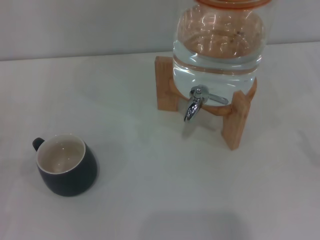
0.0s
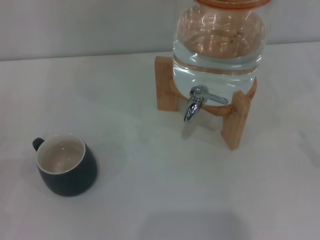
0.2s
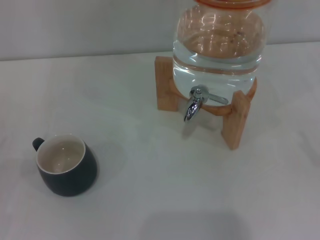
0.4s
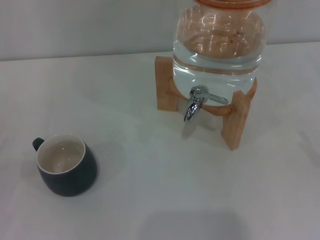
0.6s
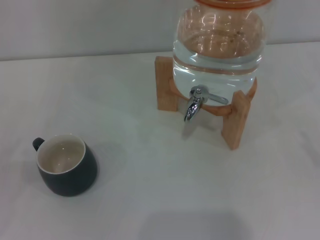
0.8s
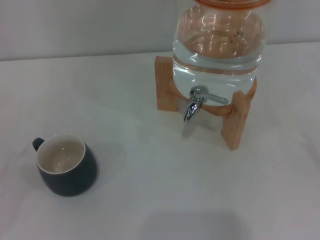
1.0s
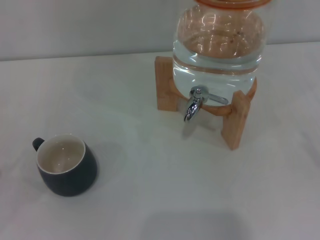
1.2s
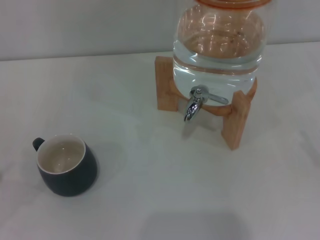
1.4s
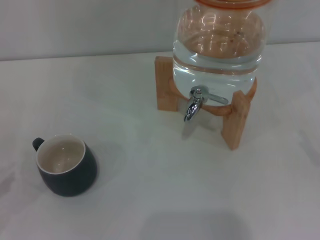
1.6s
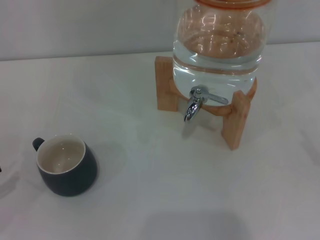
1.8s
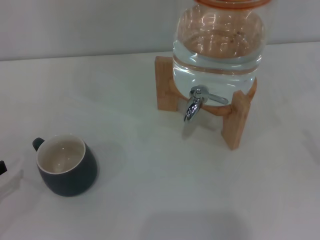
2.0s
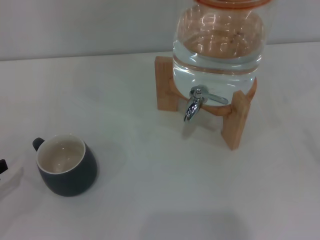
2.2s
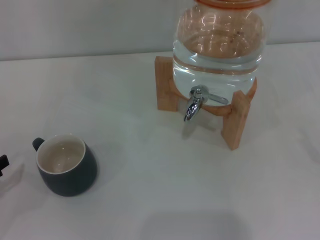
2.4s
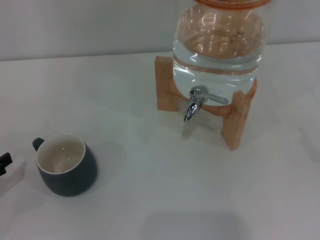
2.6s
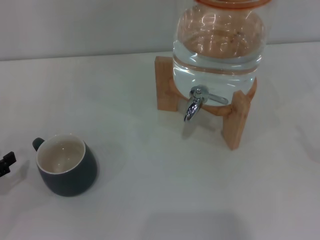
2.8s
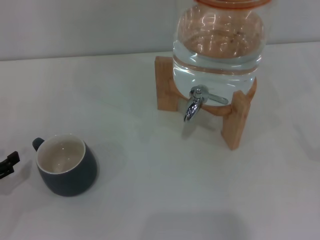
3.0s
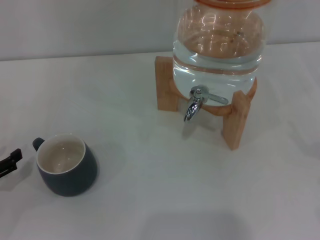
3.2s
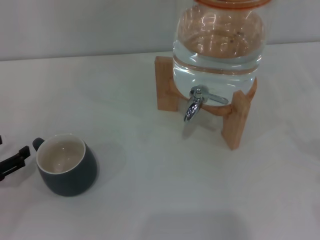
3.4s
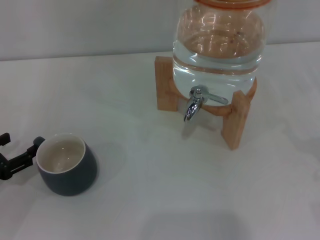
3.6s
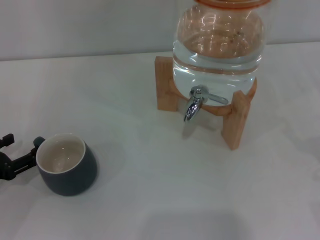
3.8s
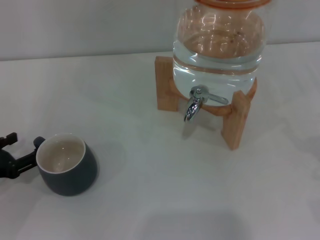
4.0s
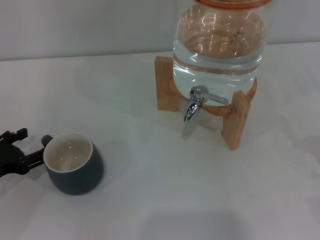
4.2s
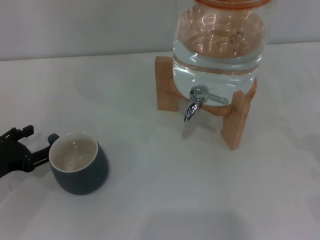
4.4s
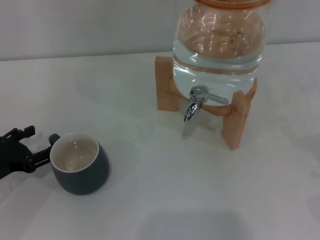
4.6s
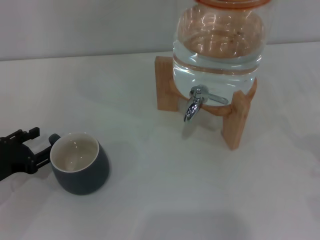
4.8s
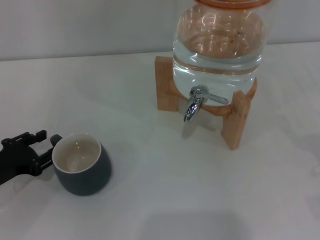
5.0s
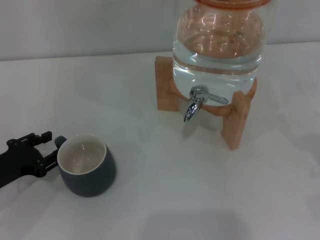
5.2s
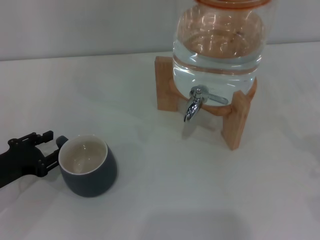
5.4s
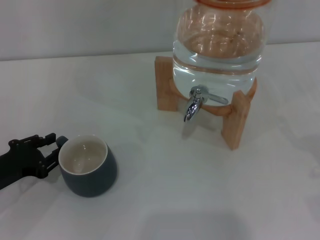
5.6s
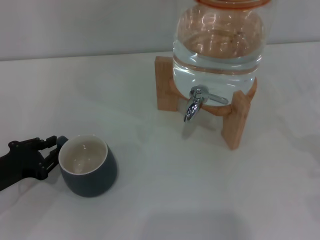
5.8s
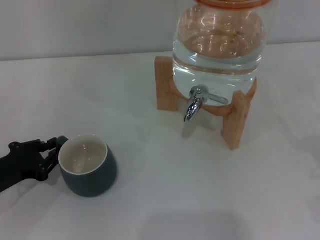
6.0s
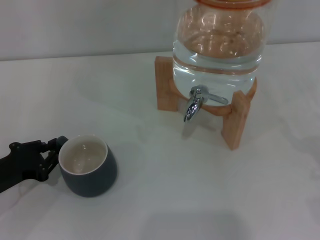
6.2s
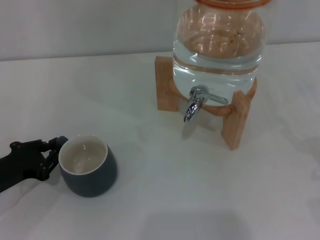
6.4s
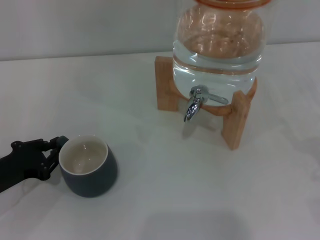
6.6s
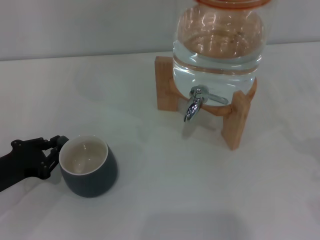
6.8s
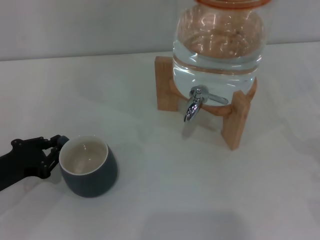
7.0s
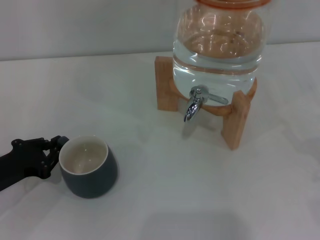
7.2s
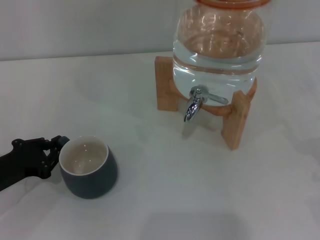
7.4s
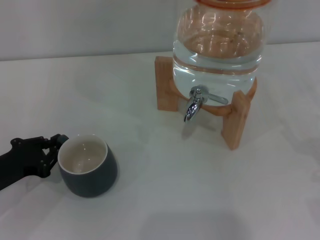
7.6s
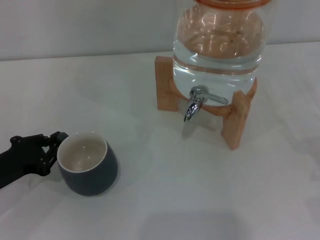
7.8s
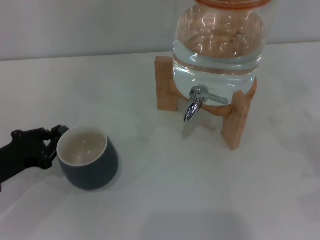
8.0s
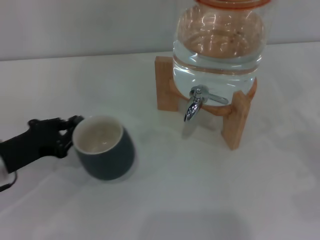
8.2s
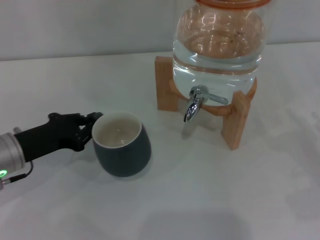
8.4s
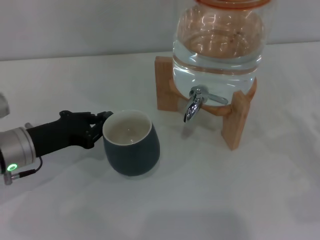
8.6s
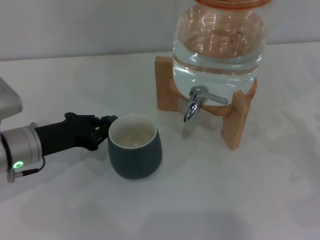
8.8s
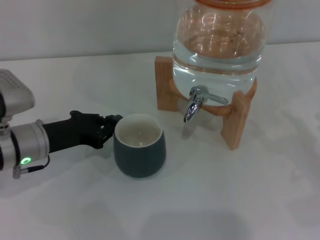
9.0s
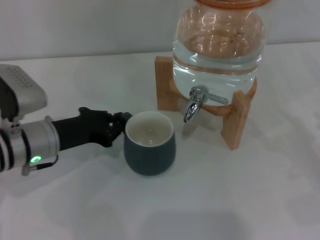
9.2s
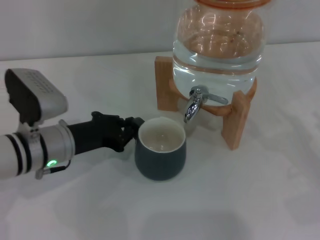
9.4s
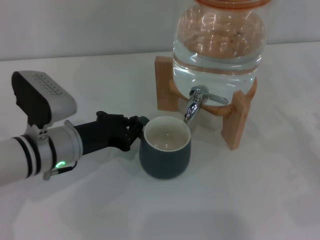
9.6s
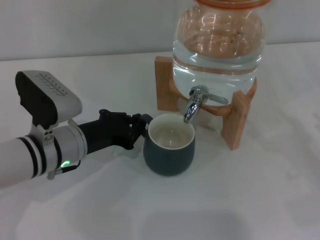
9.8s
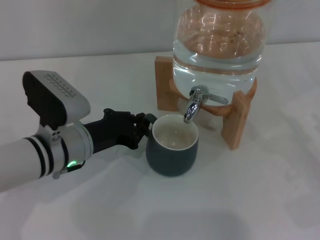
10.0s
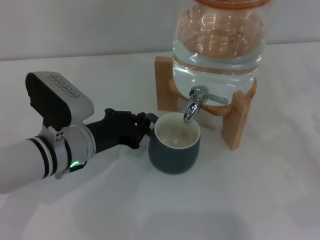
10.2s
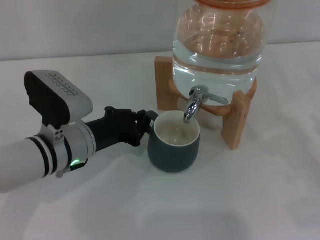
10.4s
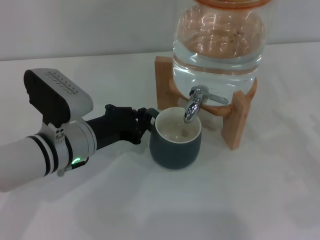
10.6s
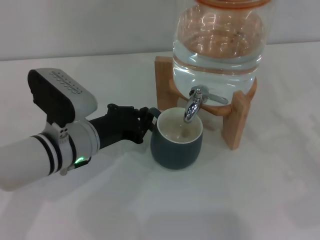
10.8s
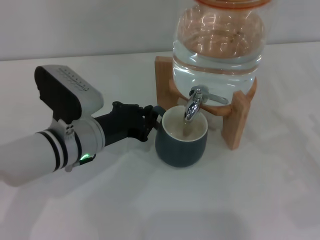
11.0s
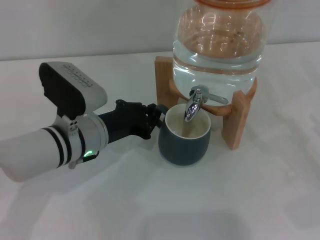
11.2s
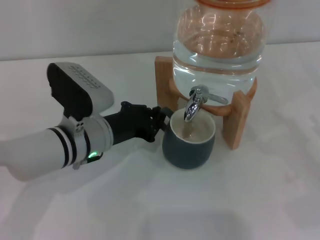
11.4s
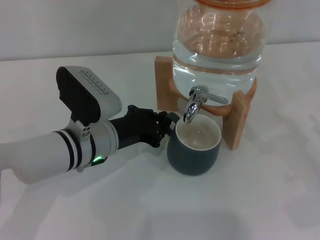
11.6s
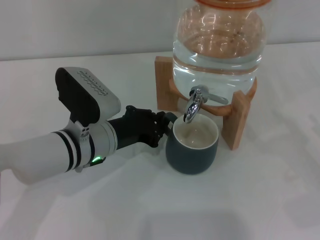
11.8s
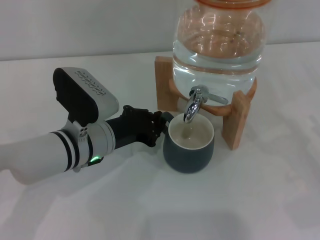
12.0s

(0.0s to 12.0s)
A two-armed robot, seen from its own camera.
Task of the whole recording: the left gripper pick up the black cup and place it horizontally under the faucet, the right gripper turn on the faucet to fill the cup, and then turn off the faucet.
1.6s - 3.0s: The left gripper moves roughly 5 cm.
3.0s - 4.4s: The left gripper moves to the right, some 5 cm.
4.4s - 6.0s: The left gripper closes up.
6.0s - 7.6s: Both grippers stay put.
7.6s - 9.0s: The left gripper goes approximately 10 cm to the right and forward.
9.0s - 10.4s: The left gripper moves to the right, approximately 5 cm.
10.4s - 12.0s: There are only small adjustments of the grippers.

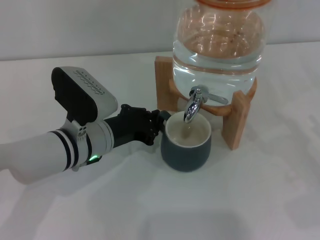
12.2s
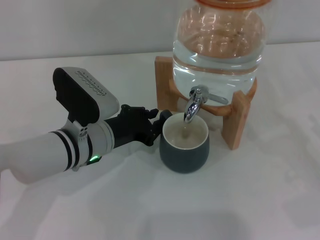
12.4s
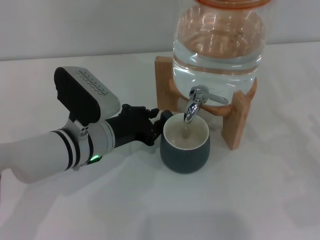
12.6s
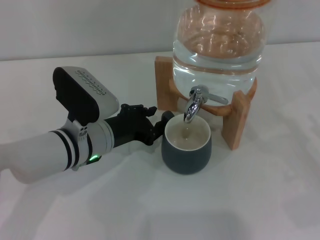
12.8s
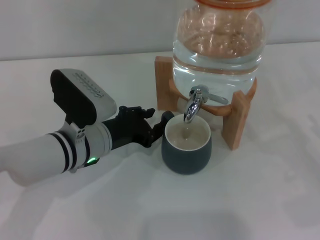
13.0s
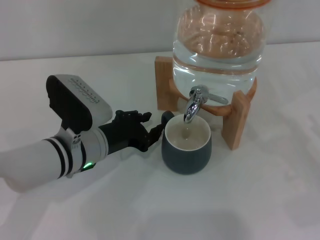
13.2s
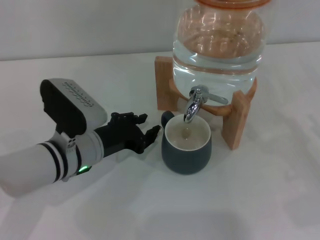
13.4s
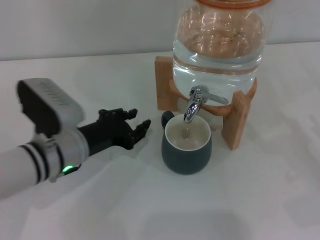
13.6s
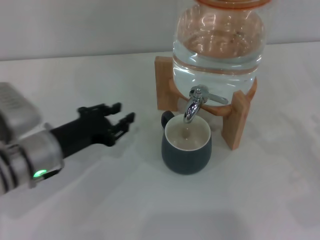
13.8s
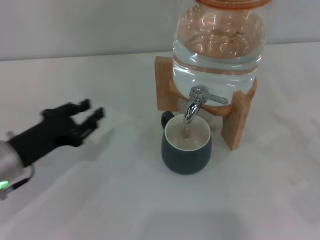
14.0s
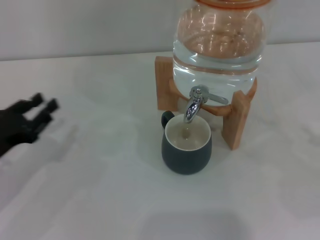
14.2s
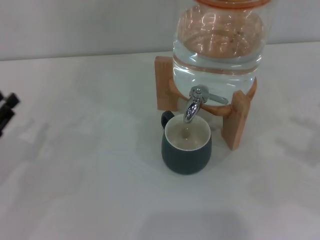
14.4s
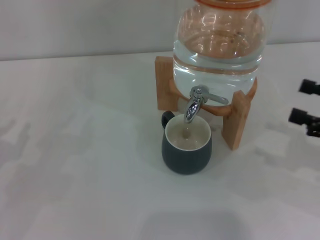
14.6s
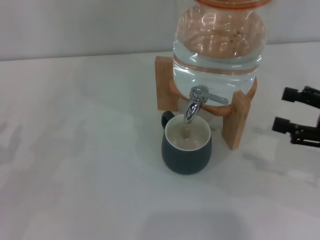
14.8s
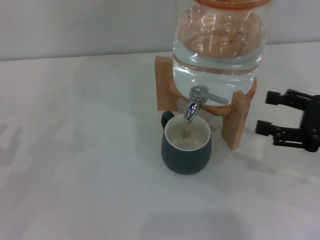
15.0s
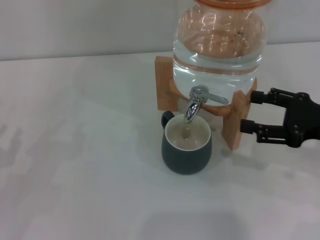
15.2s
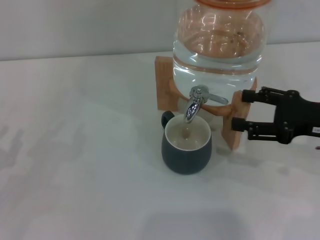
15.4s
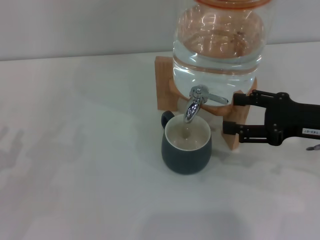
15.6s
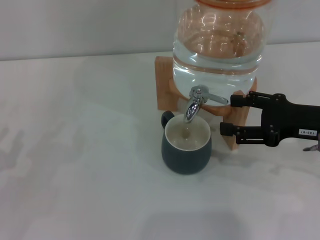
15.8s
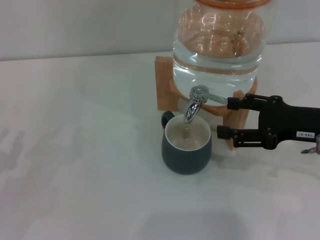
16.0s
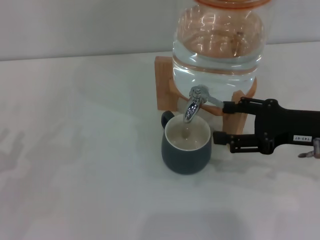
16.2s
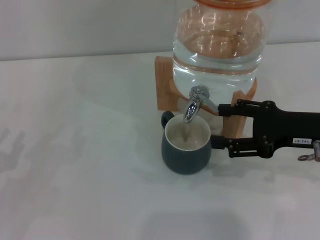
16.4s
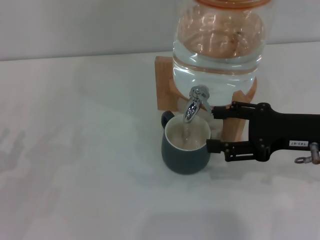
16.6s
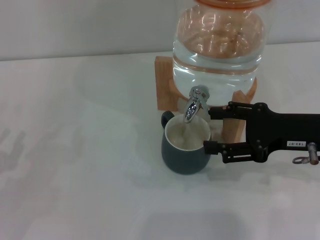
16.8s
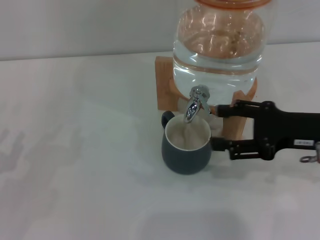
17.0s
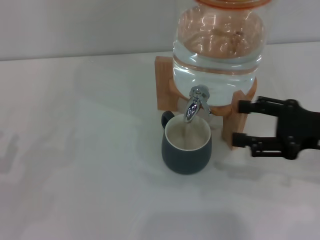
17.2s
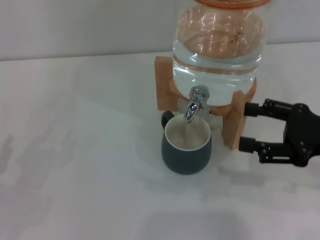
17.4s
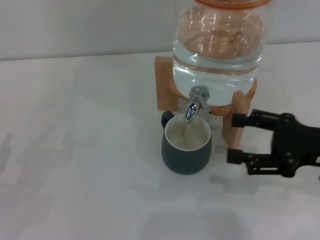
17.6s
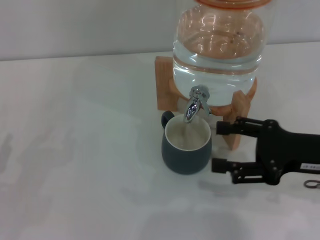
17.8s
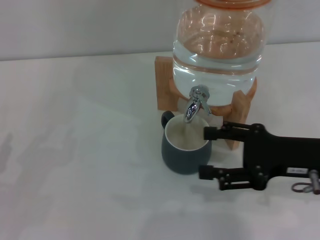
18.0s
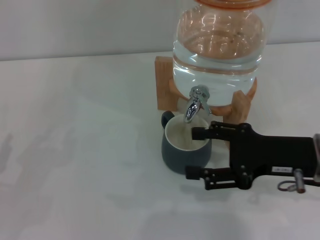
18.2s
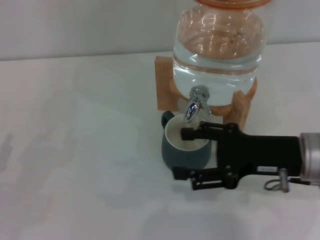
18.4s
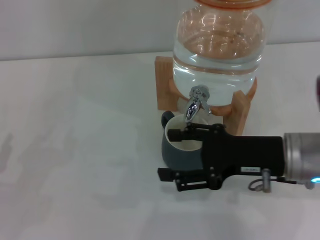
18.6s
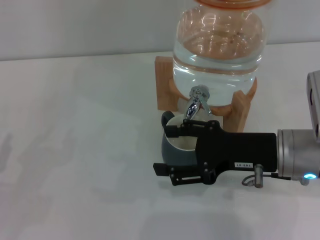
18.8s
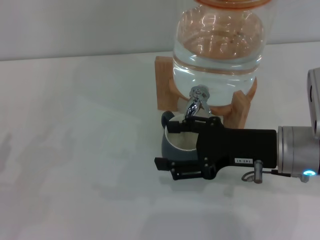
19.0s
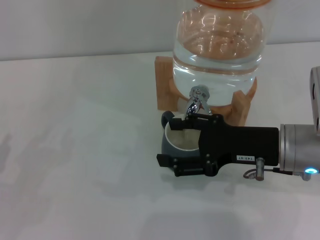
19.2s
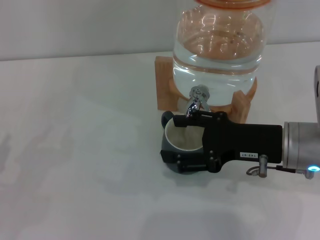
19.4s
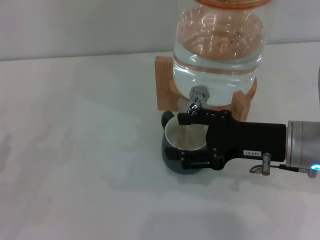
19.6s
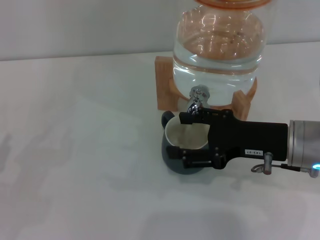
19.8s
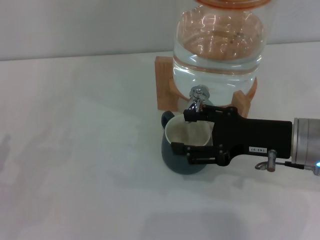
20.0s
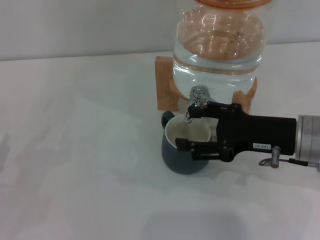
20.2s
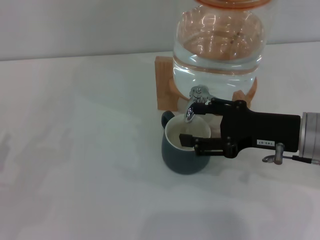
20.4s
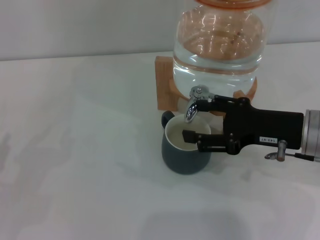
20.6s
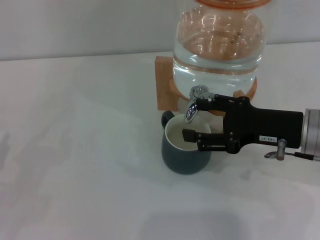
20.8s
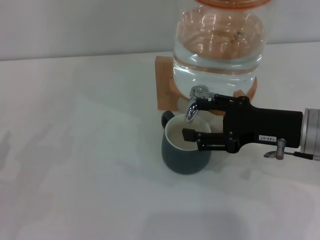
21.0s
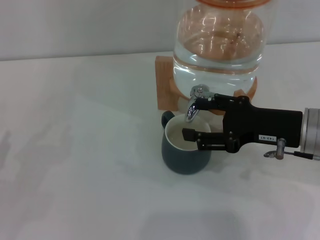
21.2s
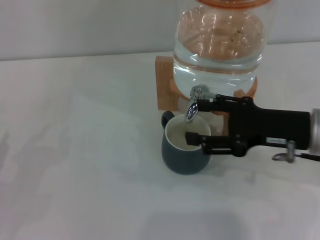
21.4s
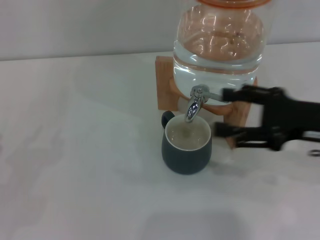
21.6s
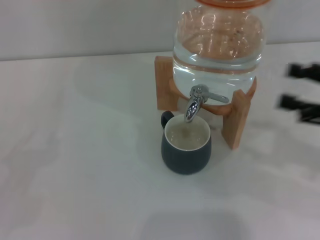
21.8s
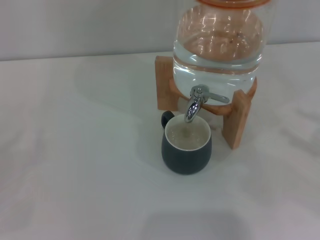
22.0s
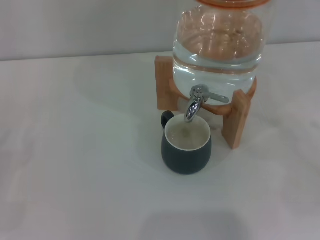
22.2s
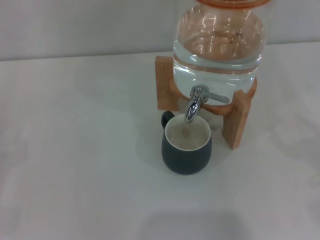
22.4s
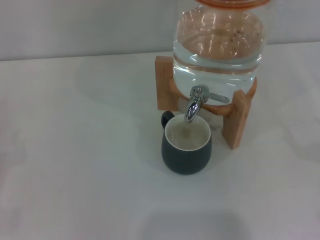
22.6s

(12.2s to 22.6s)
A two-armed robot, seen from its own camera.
Task of the whole recording: the left gripper pick up the black cup and place it horizontally under the faucet, the right gripper turn on the faucet to fill the cup, and then turn off the faucet.
Step, 13.8s - 19.2s: Open the dispenser valve and fill the cup with water with the right gripper.
Step, 19.4s - 21.6s: Close the dispenser valve with the right gripper.
12.2s - 13.6s: The left gripper opens.
13.6s - 15.2s: The left gripper is displaced to the left and backward by roughly 20 cm. Meanwhile the right gripper is displaced upward, to the left and forward by about 10 cm.
15.2s - 16.6s: The grippers make only small movements.
16.6s - 18.2s: The grippers stay close to where they were, moving slightly.
18.2s - 21.2s: The grippers move only a little.
21.2s - 22.6s: The right gripper goes about 25 cm to the right and backward.
